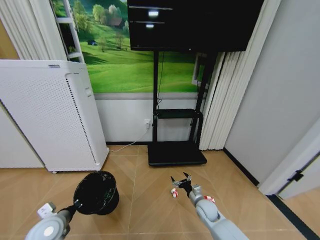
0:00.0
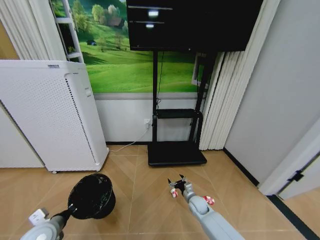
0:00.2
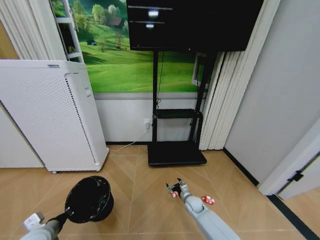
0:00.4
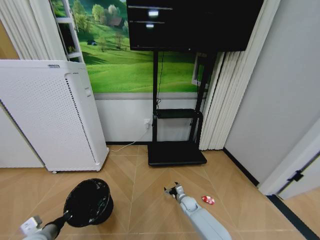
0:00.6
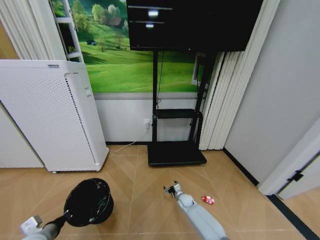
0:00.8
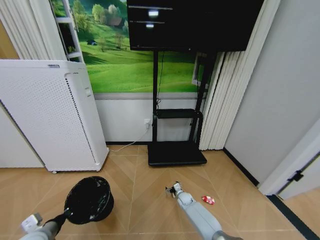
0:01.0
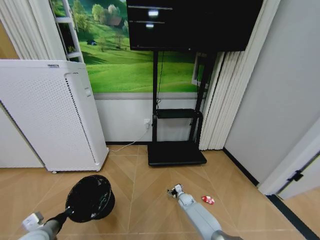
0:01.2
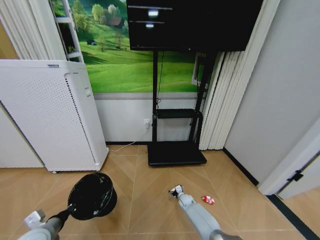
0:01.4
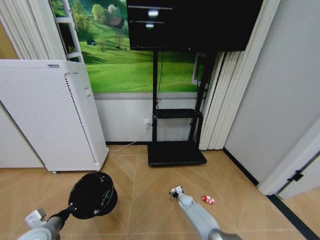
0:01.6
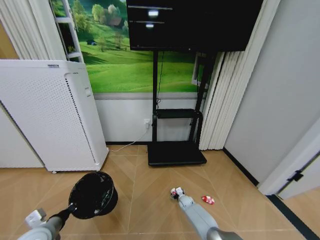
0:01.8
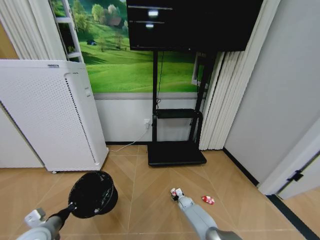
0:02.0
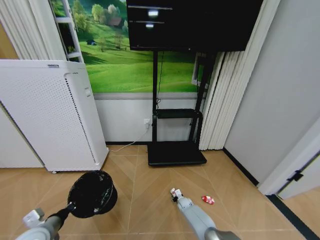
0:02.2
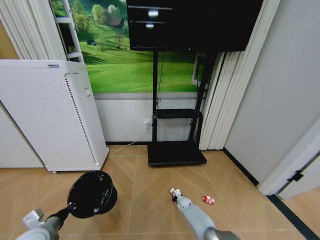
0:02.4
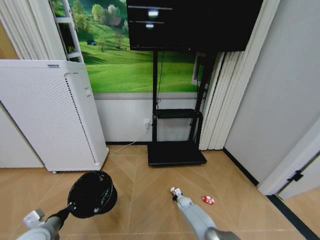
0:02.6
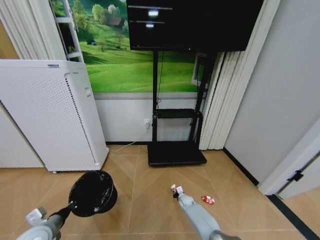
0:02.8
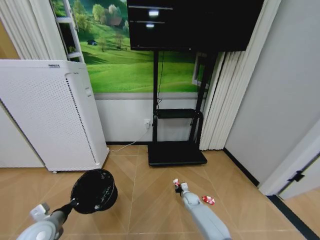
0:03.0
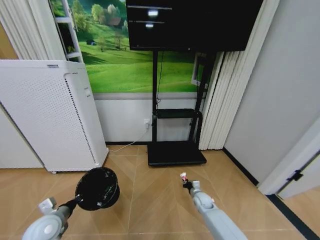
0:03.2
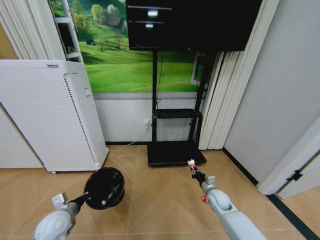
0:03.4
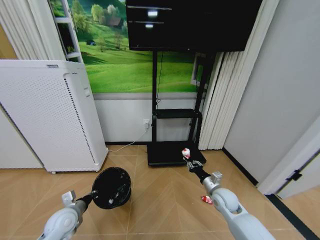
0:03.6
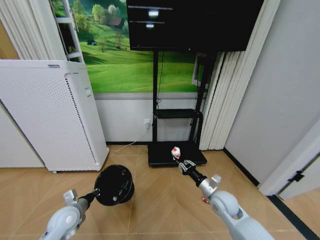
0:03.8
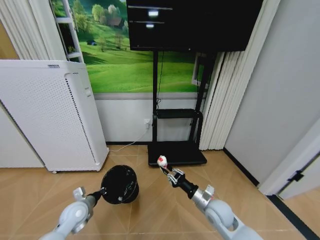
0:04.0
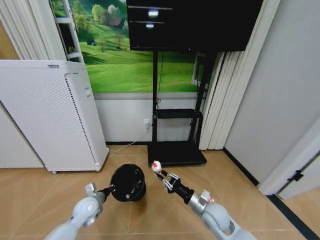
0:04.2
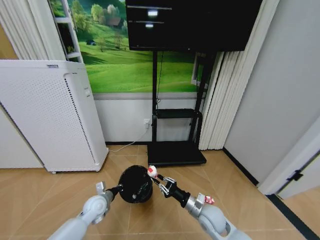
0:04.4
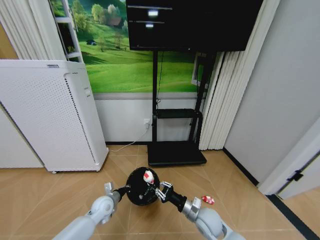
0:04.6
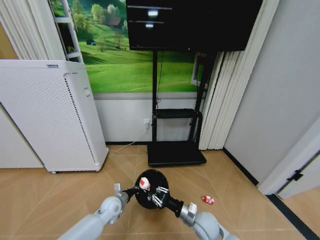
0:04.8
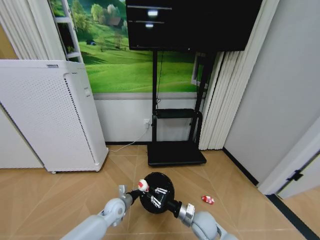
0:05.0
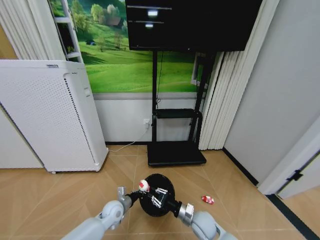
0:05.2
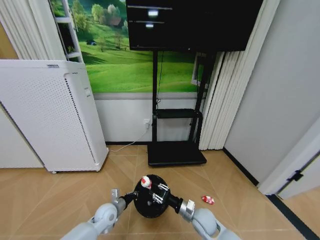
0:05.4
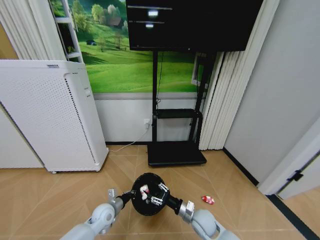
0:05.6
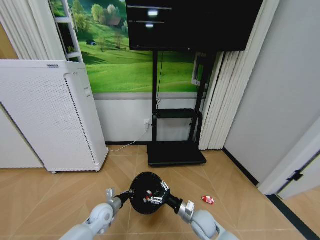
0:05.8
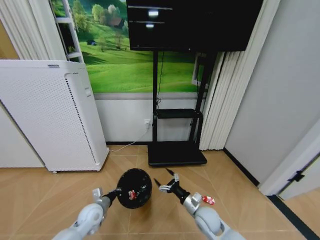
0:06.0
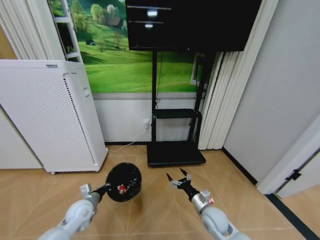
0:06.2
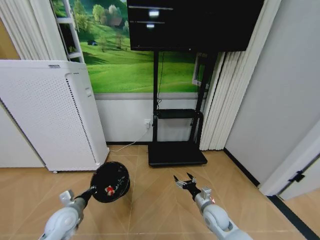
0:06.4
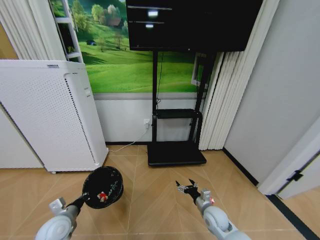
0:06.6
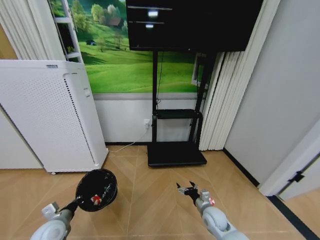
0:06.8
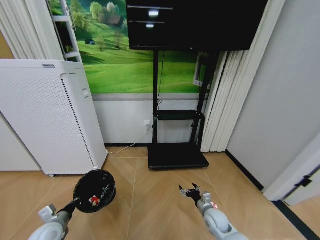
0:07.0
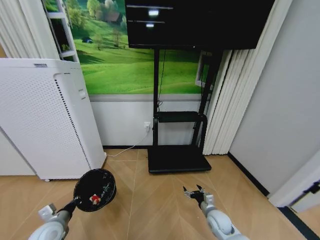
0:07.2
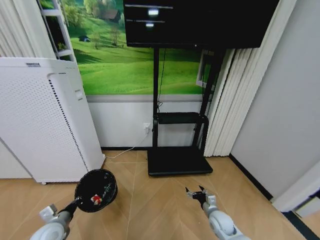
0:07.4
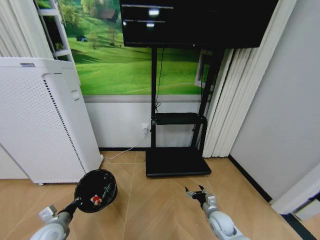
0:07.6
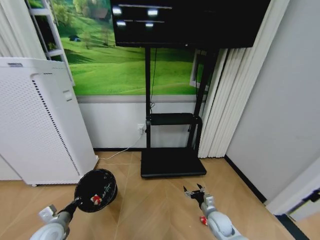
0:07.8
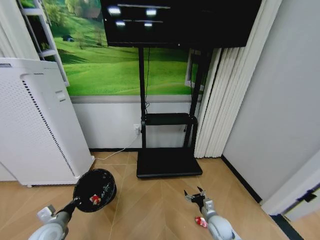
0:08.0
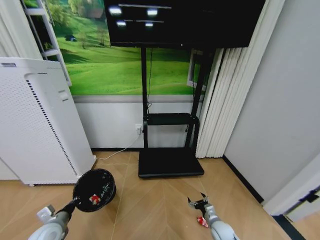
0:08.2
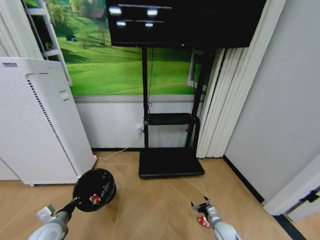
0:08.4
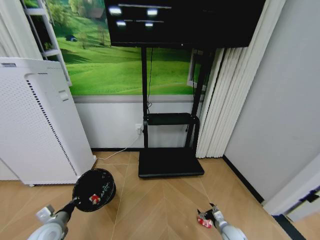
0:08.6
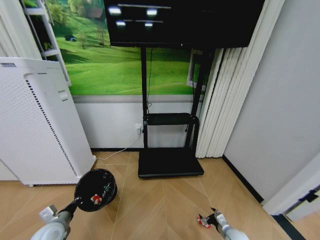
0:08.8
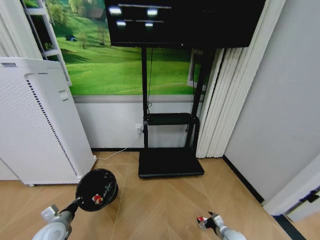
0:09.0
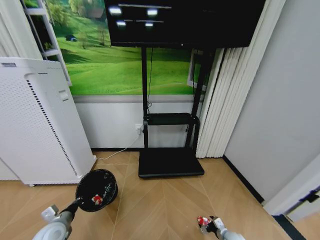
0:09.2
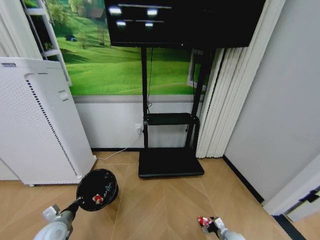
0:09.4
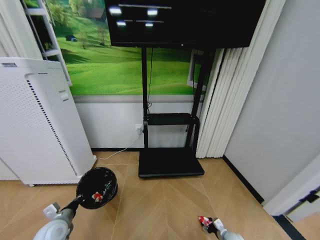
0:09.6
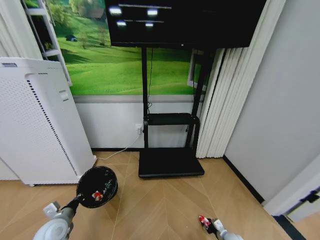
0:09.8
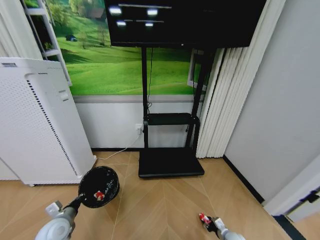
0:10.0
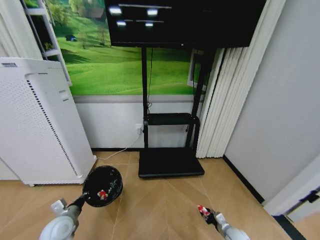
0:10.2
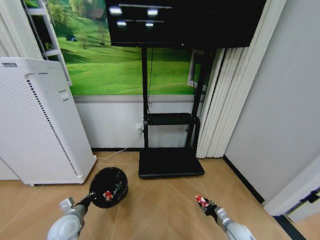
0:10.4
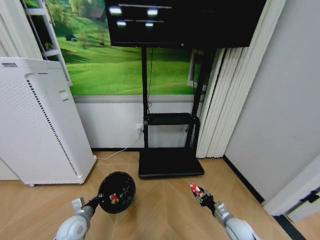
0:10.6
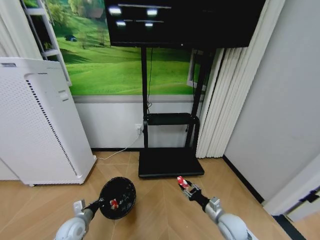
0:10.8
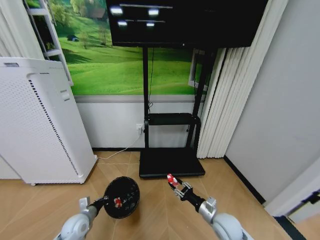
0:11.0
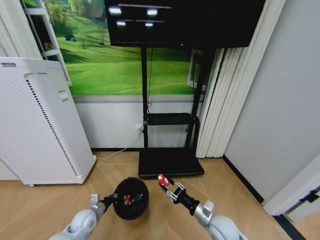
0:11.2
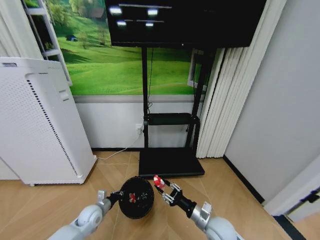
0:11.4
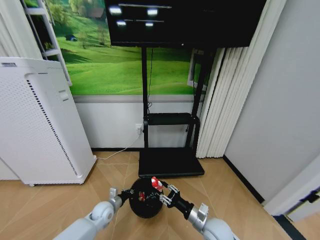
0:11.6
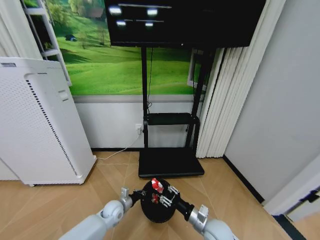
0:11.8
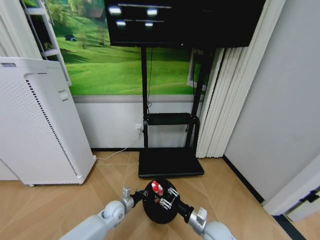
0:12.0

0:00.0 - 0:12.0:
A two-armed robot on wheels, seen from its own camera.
Task of the whole recording: Pick up the trash bin and place the garbage on the floor into it.
0:00.0 - 0:01.6: The right gripper travels downward and forward by about 20 cm.
0:01.6 - 0:03.0: The right gripper closes its fingers.
0:03.0 - 0:04.4: The right gripper heads upward and backward, covering roughly 25 cm, while the left gripper heads to the right, forward and downward, covering about 20 cm.
0:04.4 - 0:06.0: The left gripper goes to the right and returns, roughly 10 cm each way; the right gripper opens up.
0:06.0 - 0:07.6: The left gripper goes about 15 cm to the left and backward. Meanwhile the right gripper goes approximately 10 cm to the right and downward.
0:07.6 - 0:09.0: The right gripper goes about 15 cm downward and to the right.
0:09.0 - 0:10.4: The right gripper moves upward, roughly 5 cm, and closes.
0:10.4 - 0:12.0: The left gripper moves to the right, forward and downward, about 20 cm. The right gripper goes some 20 cm to the left and upward.

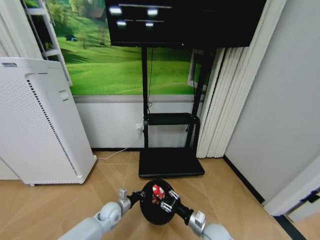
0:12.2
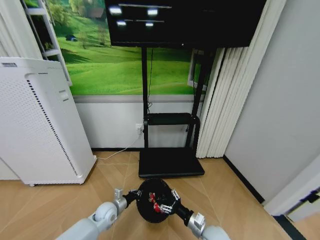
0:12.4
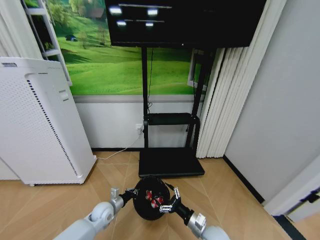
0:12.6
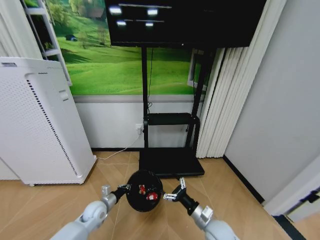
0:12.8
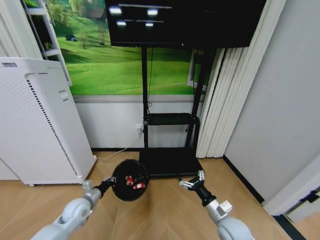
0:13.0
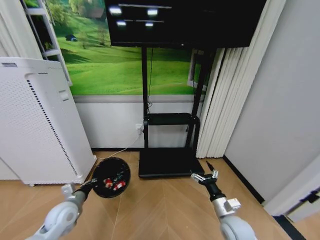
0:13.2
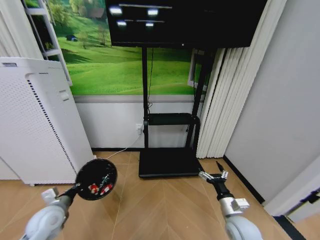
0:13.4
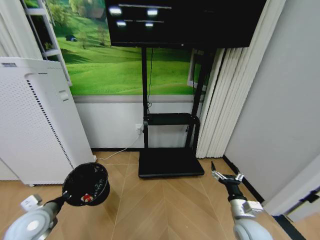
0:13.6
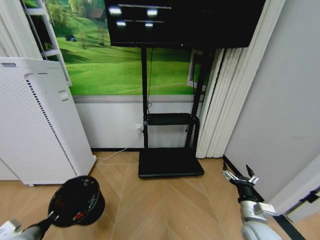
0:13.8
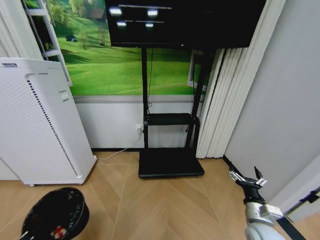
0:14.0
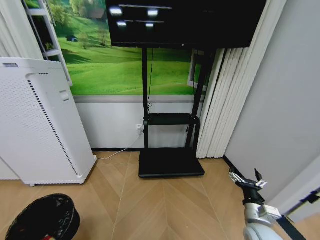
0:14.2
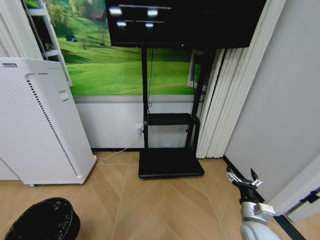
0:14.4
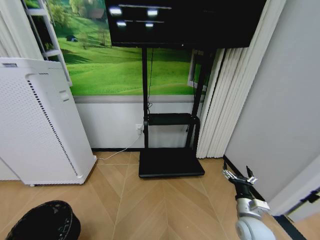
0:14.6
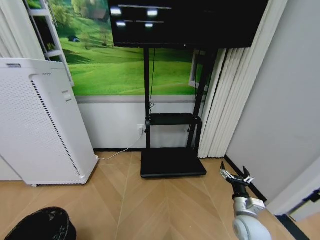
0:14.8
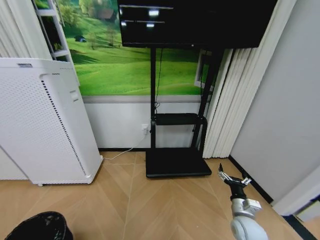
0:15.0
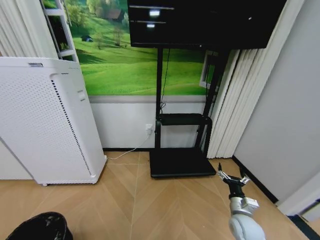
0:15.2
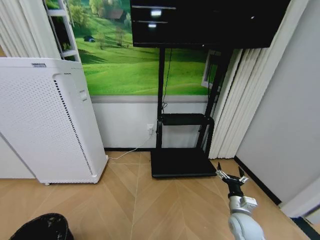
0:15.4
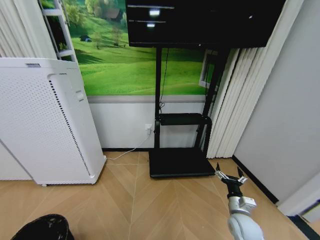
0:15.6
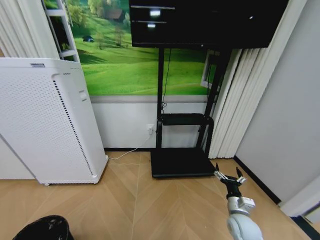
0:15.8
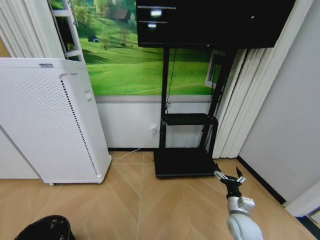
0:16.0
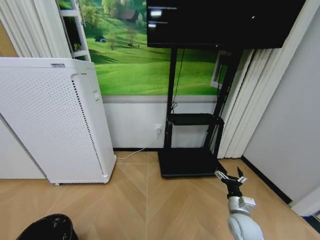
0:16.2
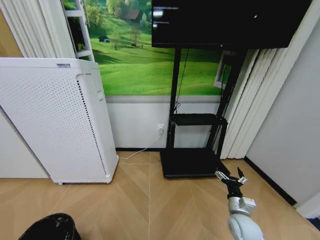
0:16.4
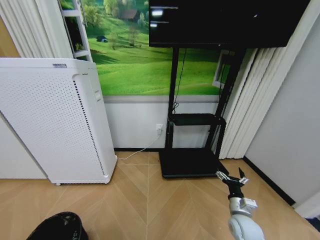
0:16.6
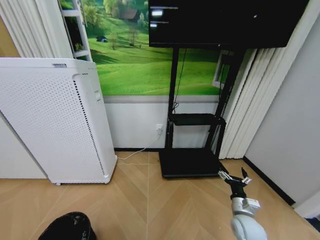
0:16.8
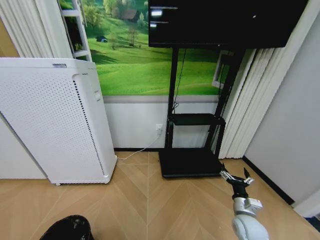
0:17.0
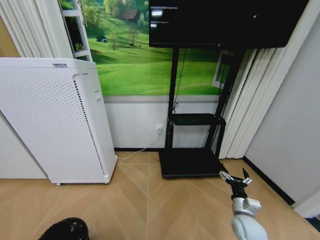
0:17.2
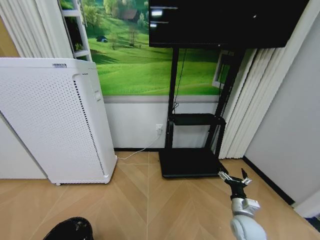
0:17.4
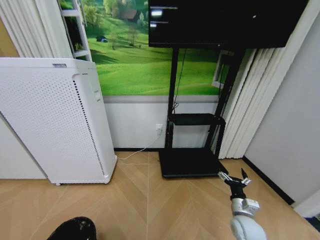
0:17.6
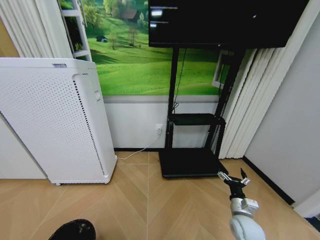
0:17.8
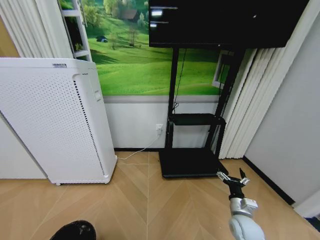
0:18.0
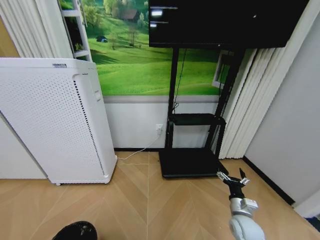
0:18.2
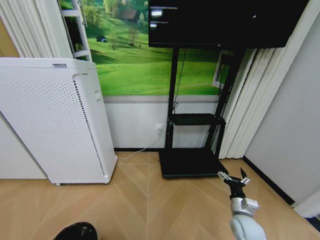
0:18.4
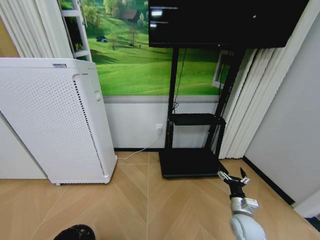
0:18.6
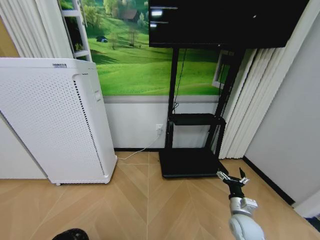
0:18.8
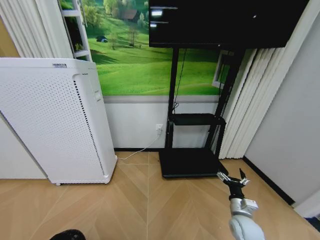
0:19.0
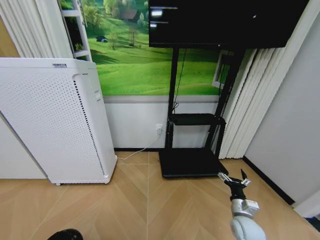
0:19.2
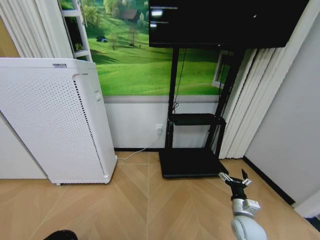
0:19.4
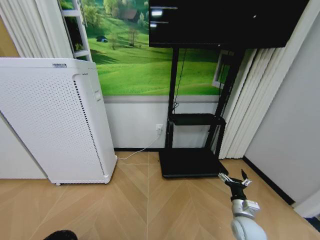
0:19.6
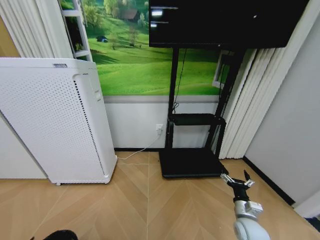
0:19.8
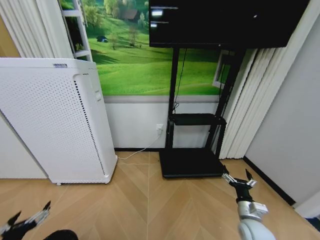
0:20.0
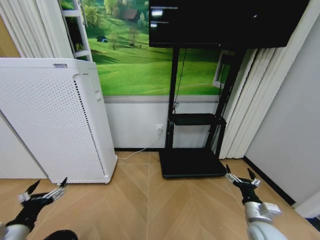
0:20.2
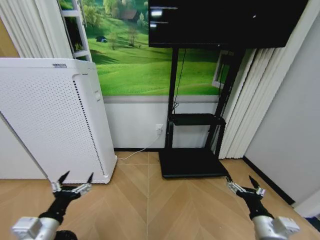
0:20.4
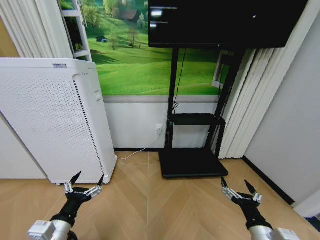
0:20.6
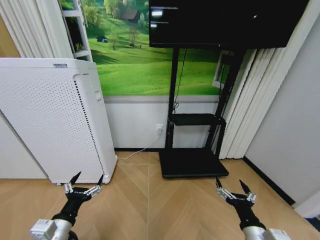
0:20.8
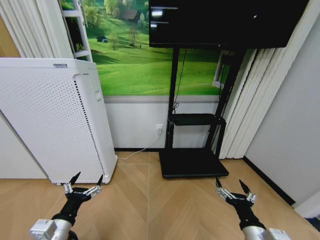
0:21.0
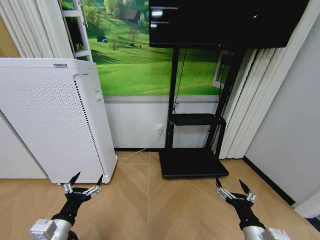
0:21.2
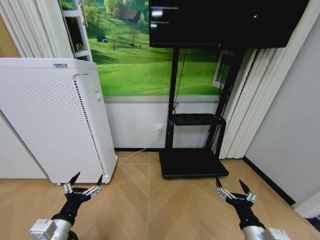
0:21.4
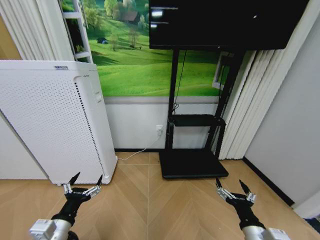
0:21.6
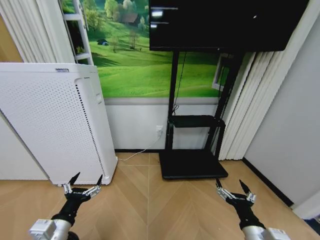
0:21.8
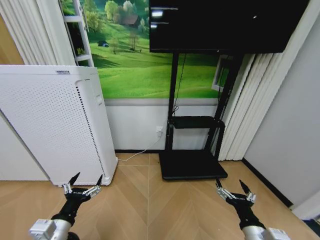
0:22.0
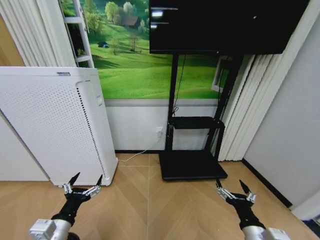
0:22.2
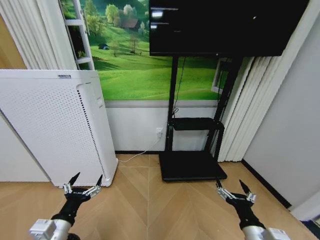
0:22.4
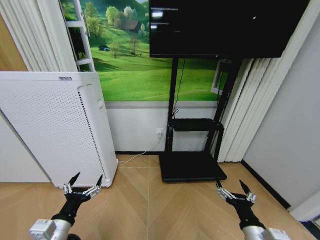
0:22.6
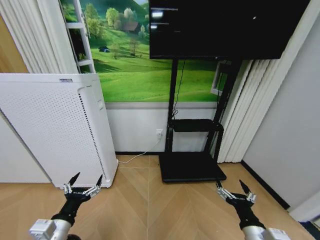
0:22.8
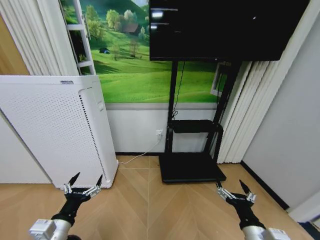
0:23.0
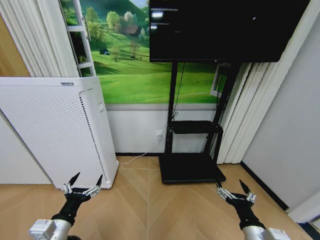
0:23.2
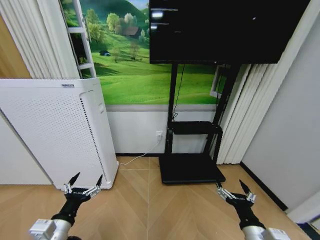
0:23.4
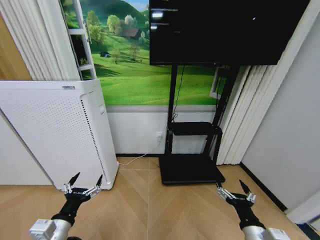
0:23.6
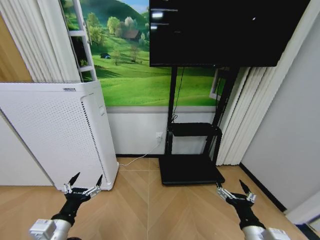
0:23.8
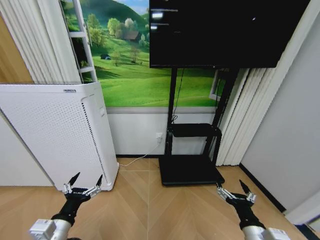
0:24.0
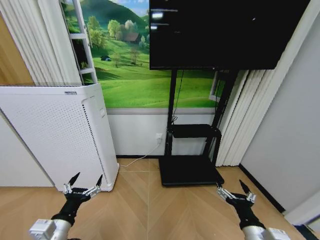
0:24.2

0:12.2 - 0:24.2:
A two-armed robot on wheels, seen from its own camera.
Task of the whole recording: Pick up the trash bin and place the garbage on the floor into it.
0:12.2 - 0:13.8: The right gripper goes approximately 15 cm to the right and upward, and opens. The left gripper shifts some 30 cm to the left, upward and backward.
0:13.8 - 0:15.2: The right gripper changes place by about 5 cm. Meanwhile the left gripper heads backward and to the left, covering about 15 cm.
0:16.6 - 0:18.2: The left gripper ends up about 5 cm from where it was.
0:18.2 - 0:19.8: The left gripper shifts by approximately 5 cm, and opens.
0:19.8 - 0:21.2: The right gripper is displaced backward, upward and to the left by some 15 cm, while the left gripper goes about 20 cm to the right, forward and upward.
0:21.2 - 0:24.2: Both grippers stay put.
